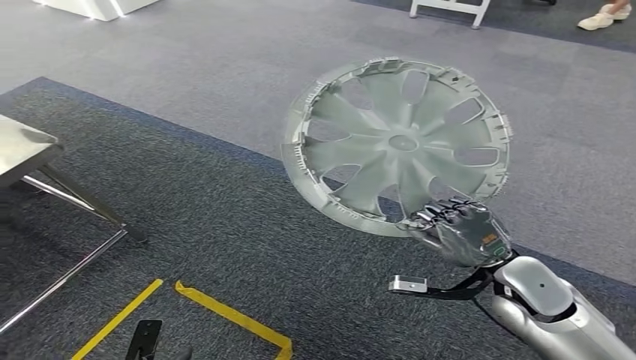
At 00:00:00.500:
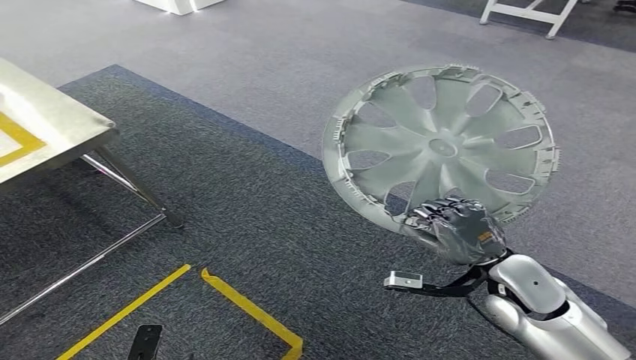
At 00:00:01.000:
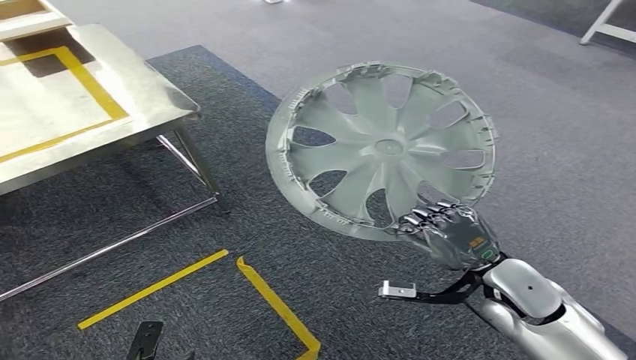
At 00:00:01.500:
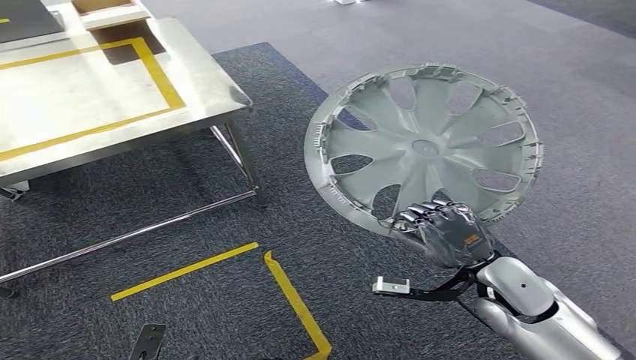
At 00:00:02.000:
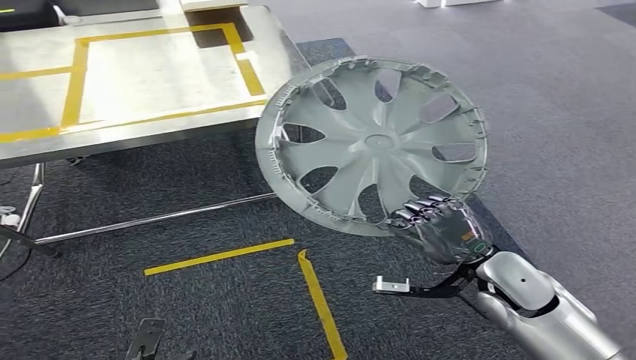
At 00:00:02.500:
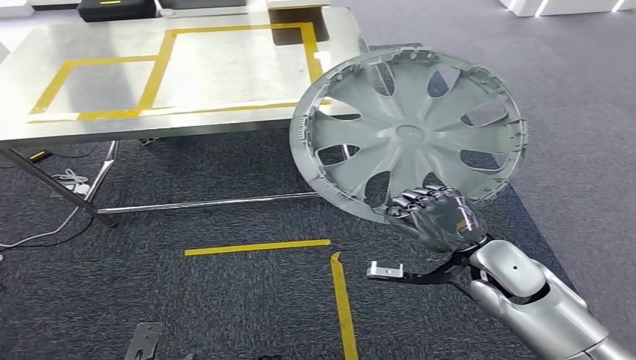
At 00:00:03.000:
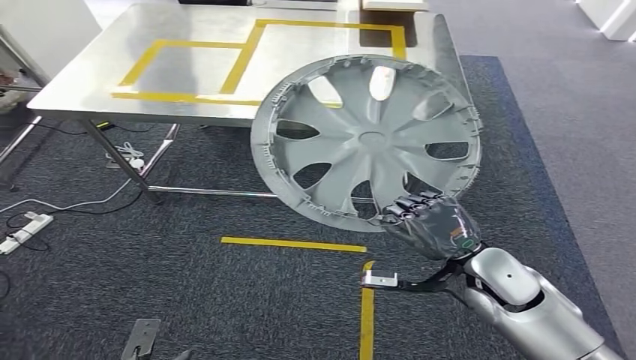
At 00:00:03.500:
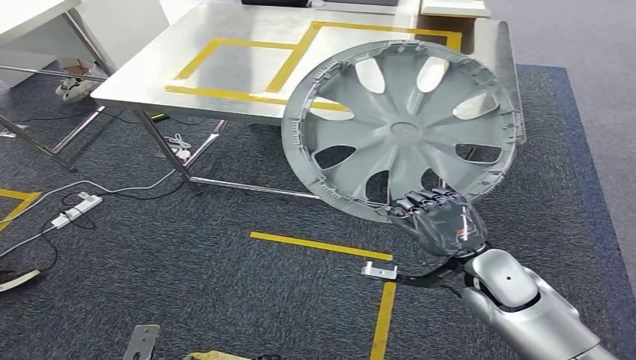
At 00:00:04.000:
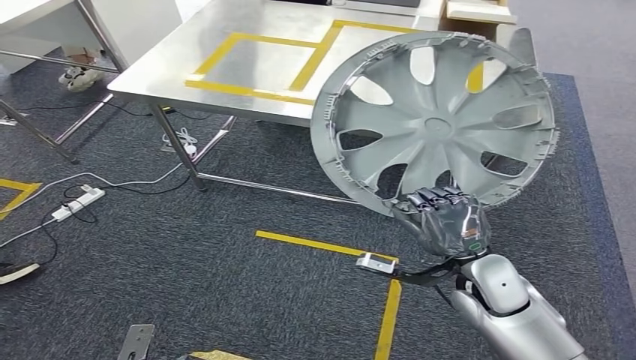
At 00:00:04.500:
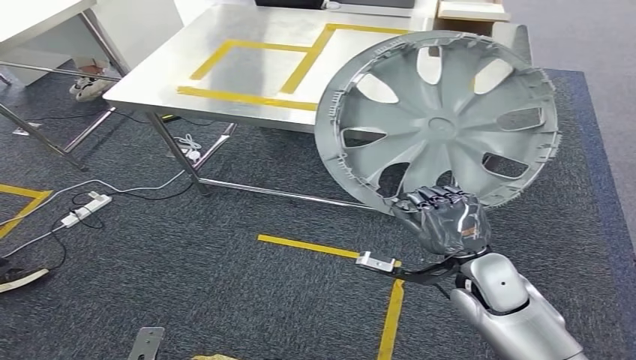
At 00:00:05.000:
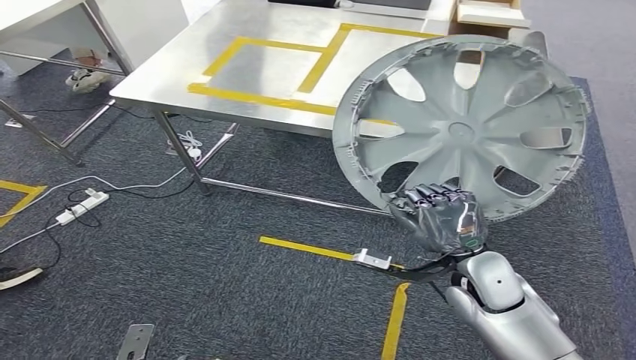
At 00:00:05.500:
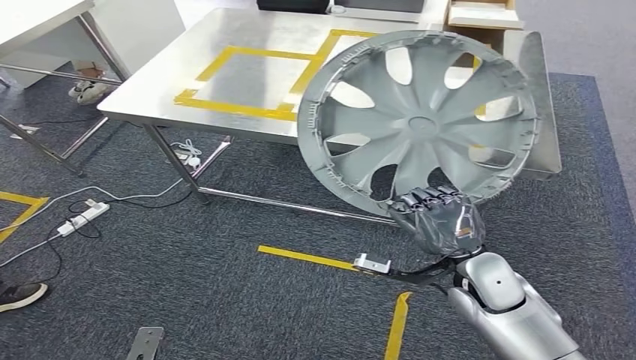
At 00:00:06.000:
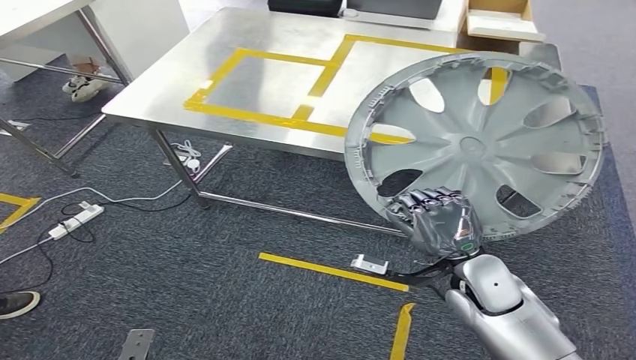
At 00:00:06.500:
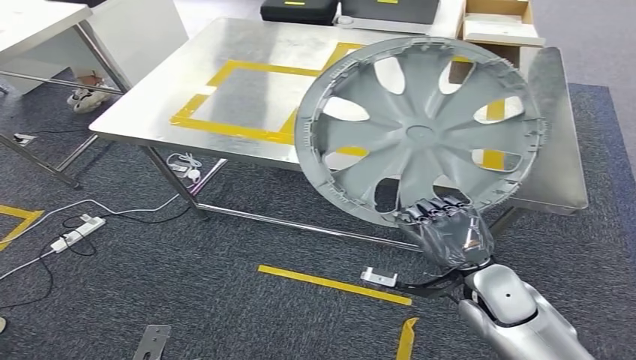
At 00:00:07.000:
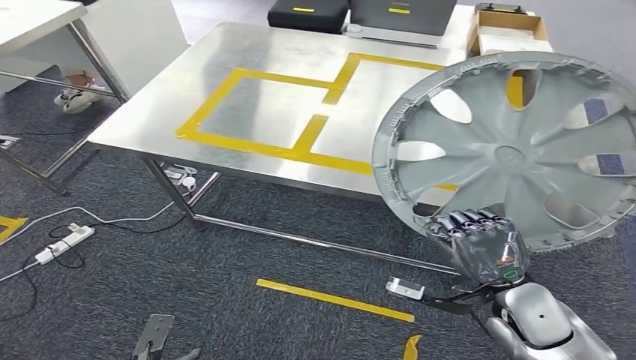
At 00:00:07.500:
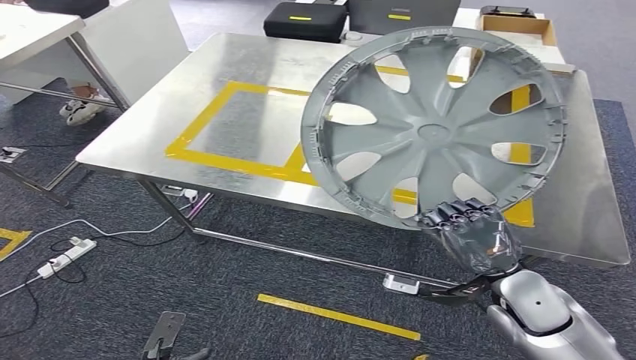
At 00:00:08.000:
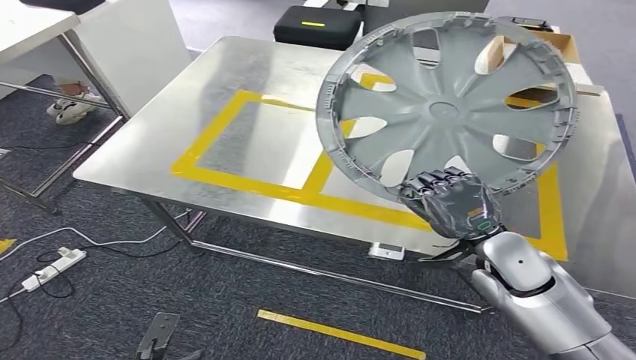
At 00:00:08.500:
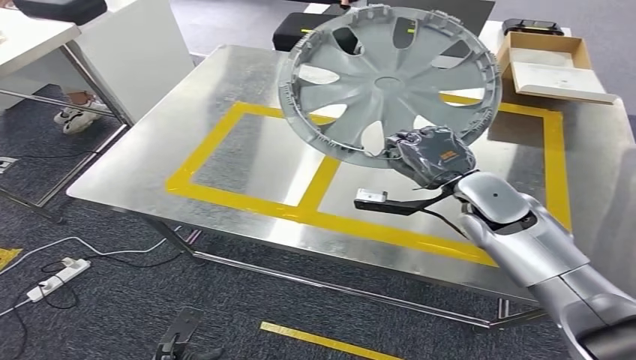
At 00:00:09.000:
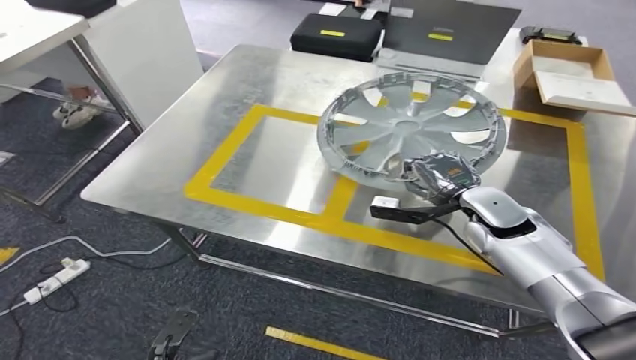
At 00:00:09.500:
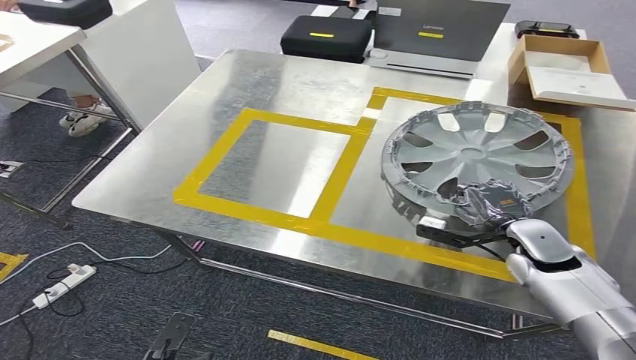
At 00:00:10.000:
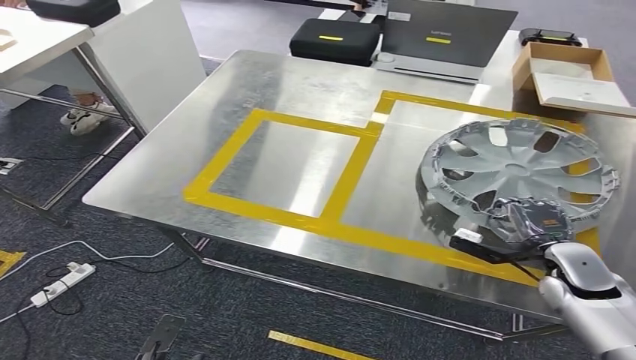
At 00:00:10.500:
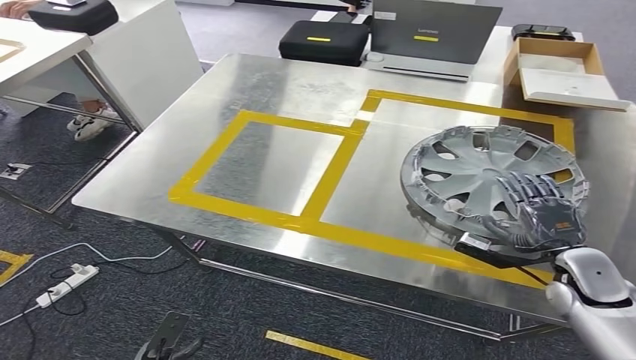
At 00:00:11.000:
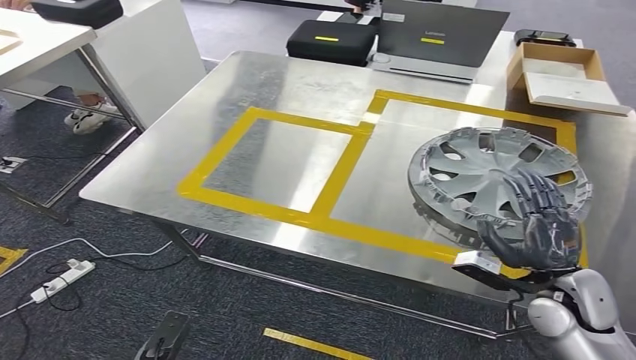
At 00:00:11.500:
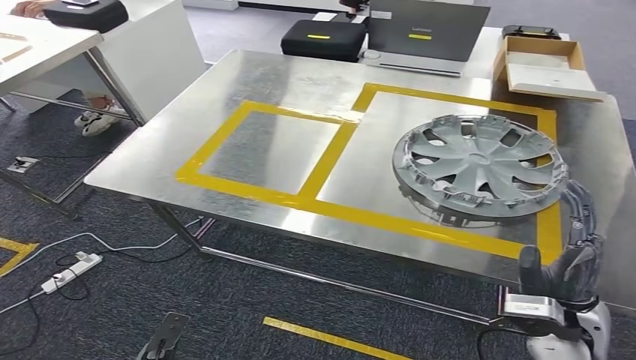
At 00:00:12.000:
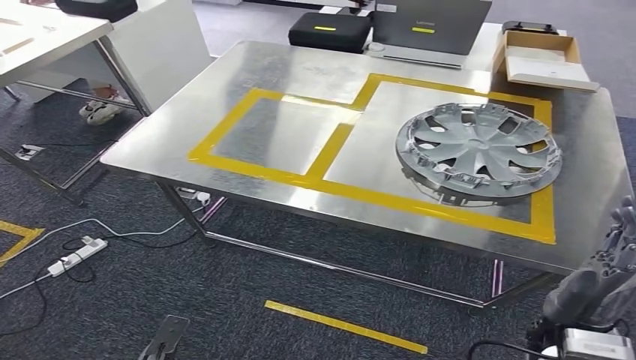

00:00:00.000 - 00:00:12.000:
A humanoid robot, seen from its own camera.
Step, 00:00:00.000 - 00:00:06.000: Bring the small component to the front of the workbench.
Step, 00:00:06.500 - 00:00:11.000: Insert the small component into the corresponding slot on the workbench.

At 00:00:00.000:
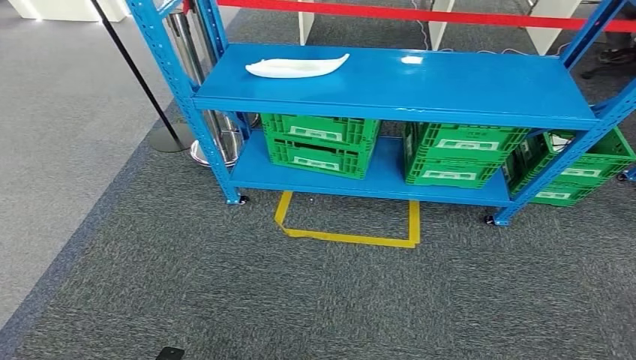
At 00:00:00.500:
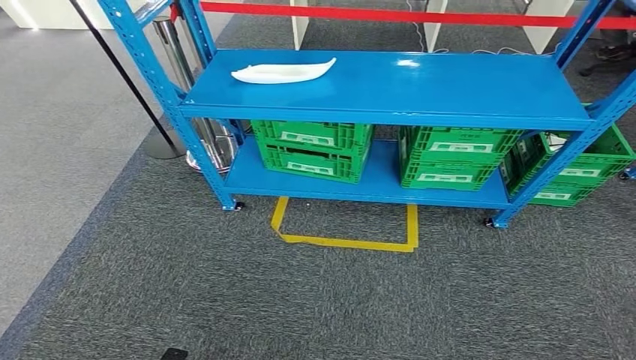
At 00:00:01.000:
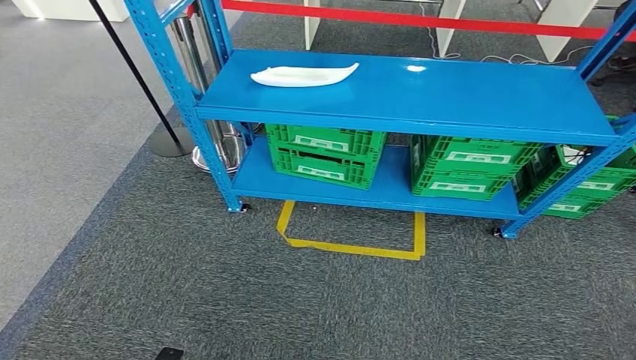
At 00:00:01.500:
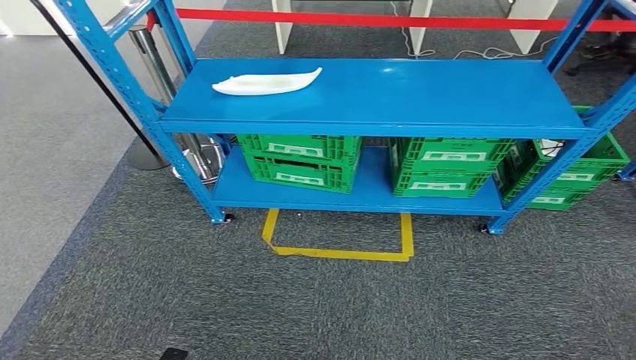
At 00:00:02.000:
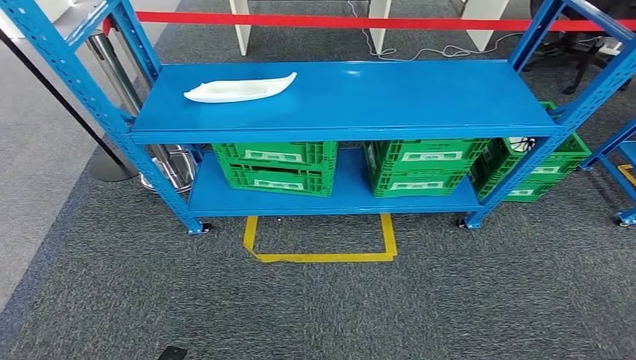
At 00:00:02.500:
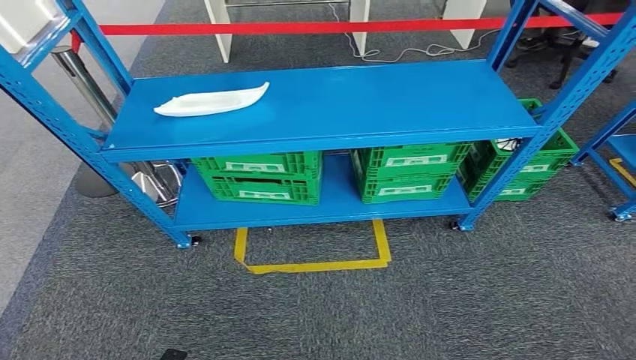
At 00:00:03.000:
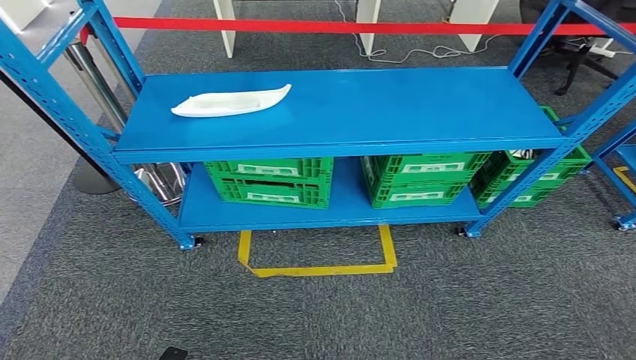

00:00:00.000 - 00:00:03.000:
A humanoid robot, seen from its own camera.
Step, 00:00:00.000 - 00:00:03.000: Move to the initial position of the workbench.
